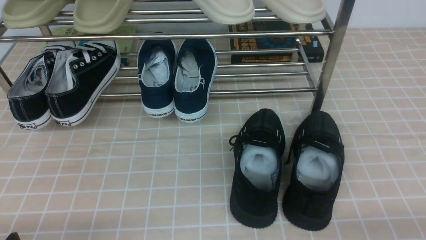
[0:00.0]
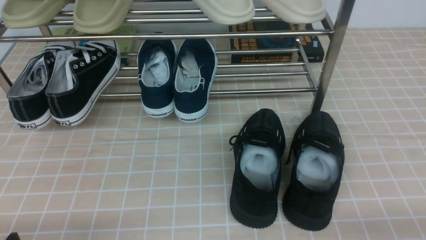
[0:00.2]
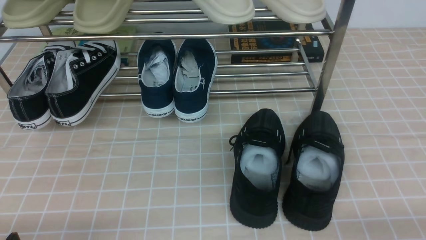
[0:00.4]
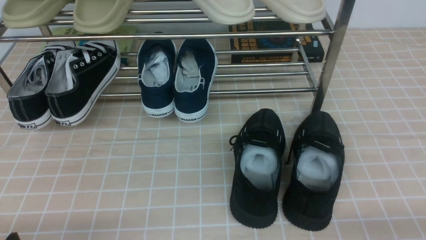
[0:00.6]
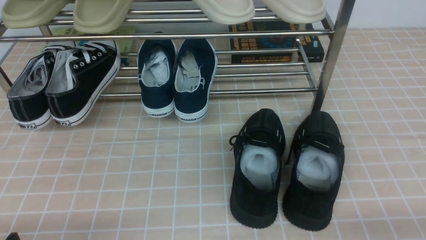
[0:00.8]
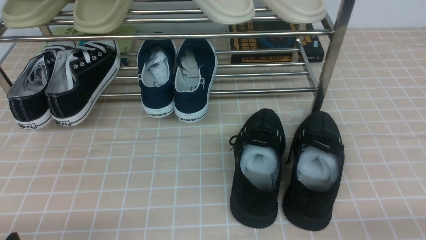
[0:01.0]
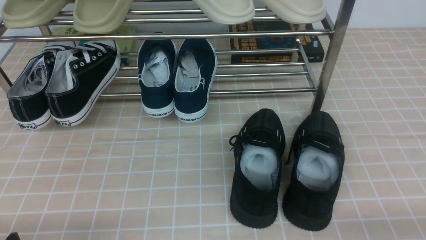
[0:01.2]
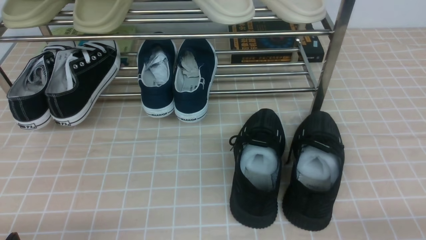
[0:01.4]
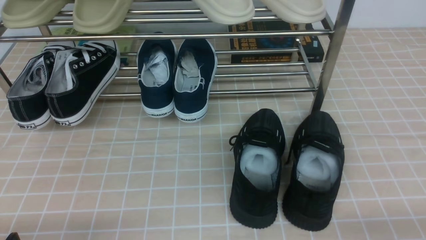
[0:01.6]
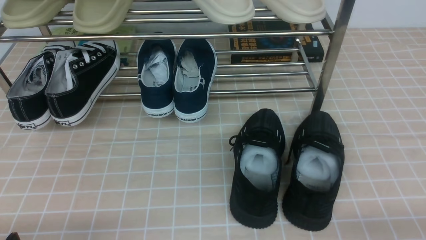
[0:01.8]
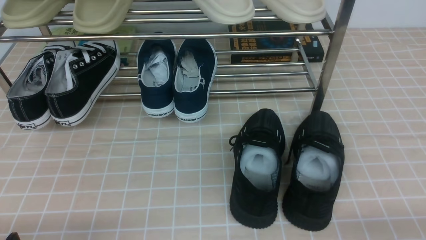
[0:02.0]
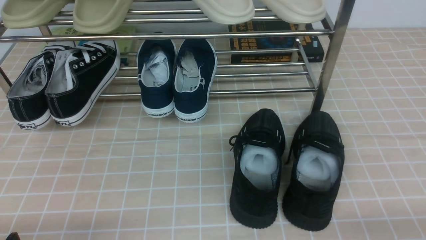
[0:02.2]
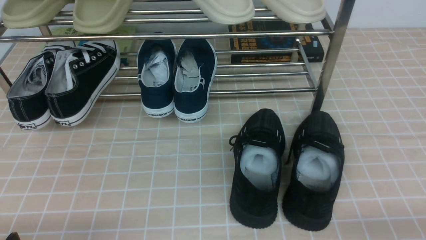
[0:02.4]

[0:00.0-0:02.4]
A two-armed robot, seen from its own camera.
0:00.0 to 0:02.4: Neither gripper changes place.

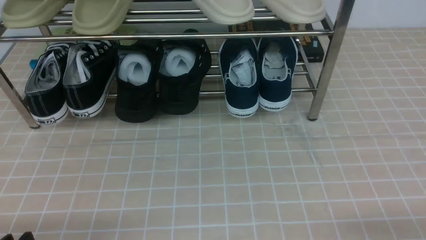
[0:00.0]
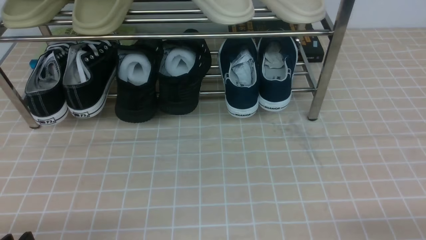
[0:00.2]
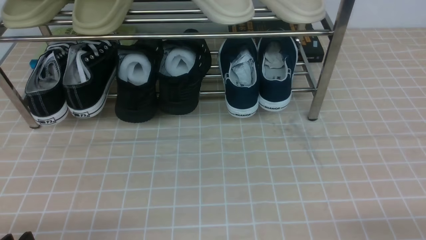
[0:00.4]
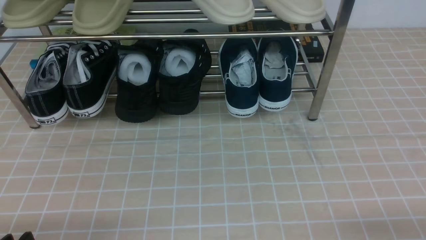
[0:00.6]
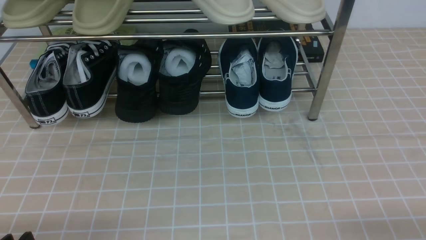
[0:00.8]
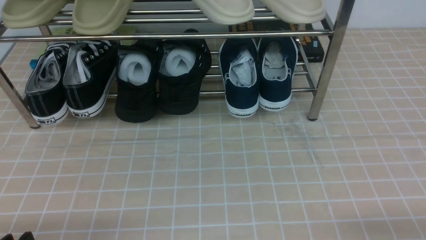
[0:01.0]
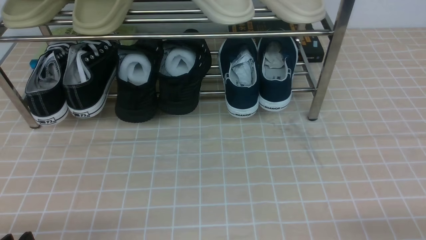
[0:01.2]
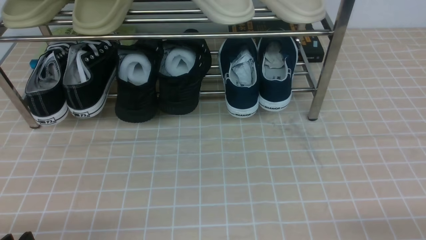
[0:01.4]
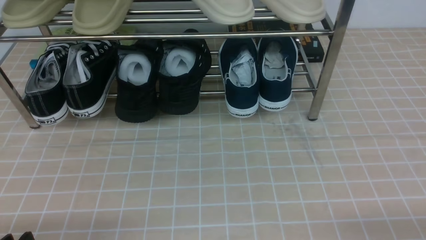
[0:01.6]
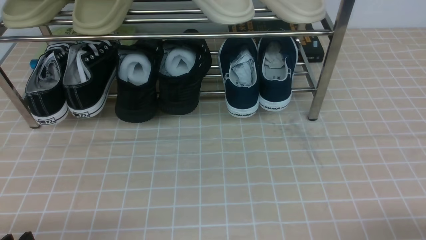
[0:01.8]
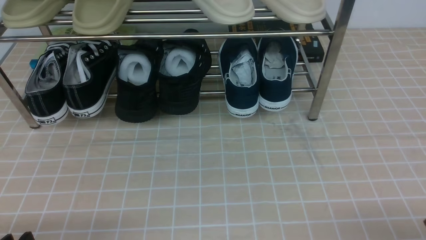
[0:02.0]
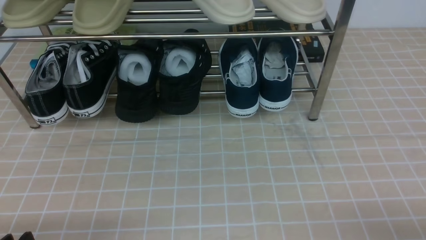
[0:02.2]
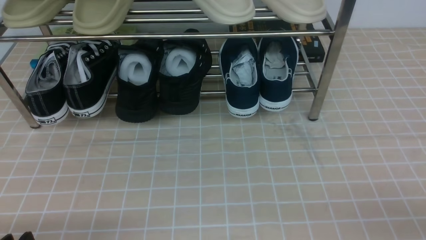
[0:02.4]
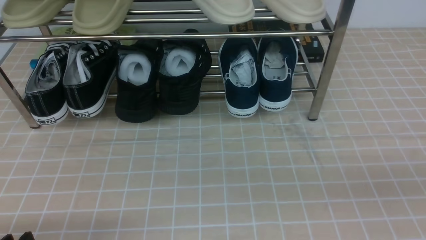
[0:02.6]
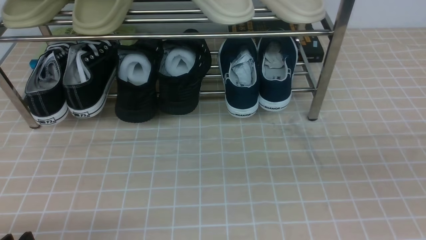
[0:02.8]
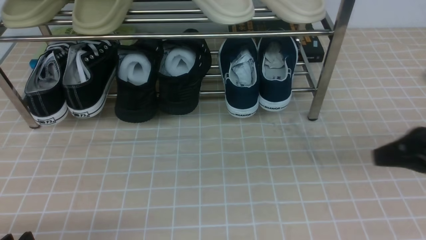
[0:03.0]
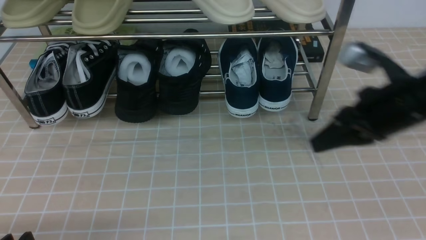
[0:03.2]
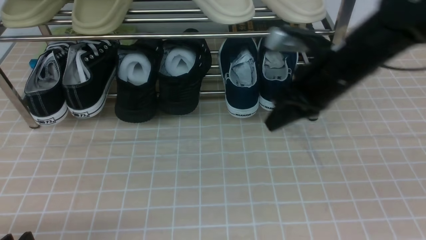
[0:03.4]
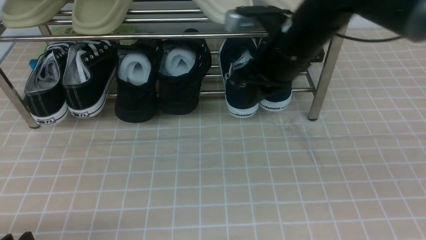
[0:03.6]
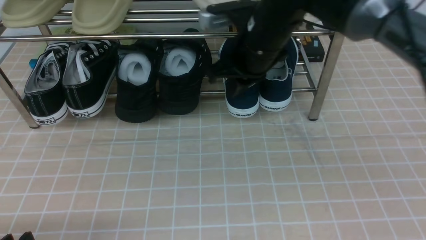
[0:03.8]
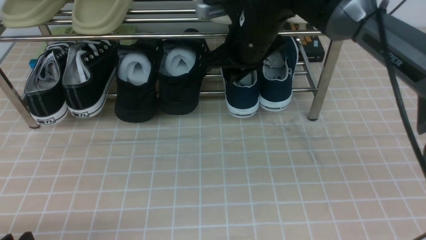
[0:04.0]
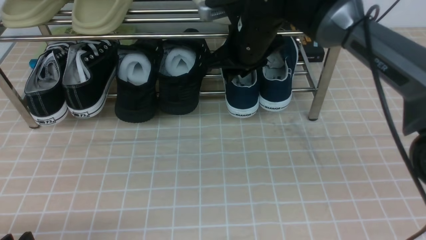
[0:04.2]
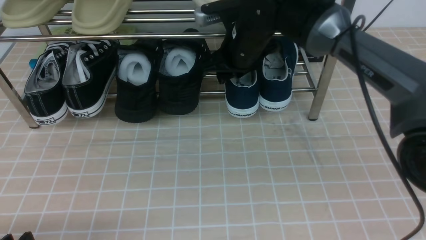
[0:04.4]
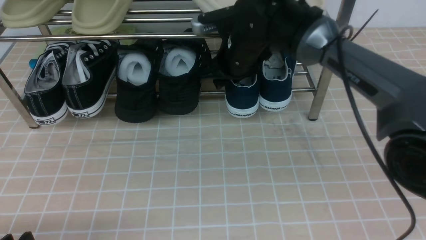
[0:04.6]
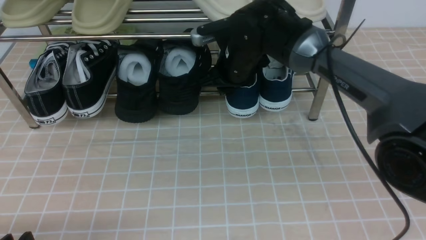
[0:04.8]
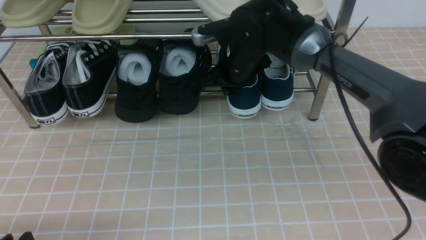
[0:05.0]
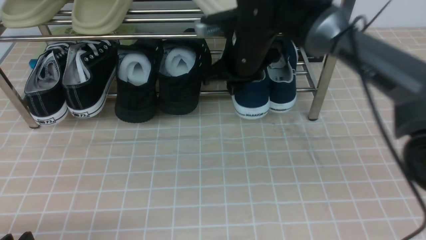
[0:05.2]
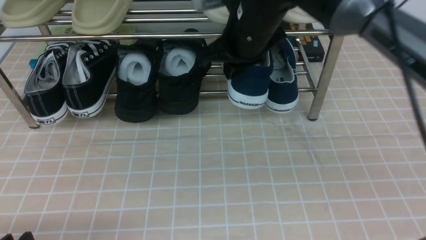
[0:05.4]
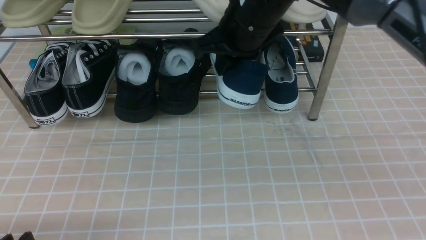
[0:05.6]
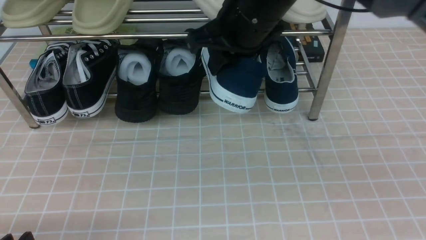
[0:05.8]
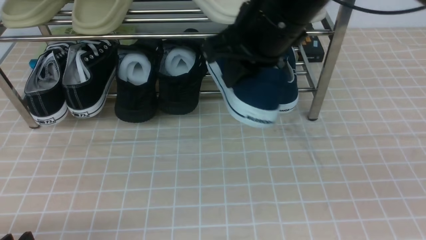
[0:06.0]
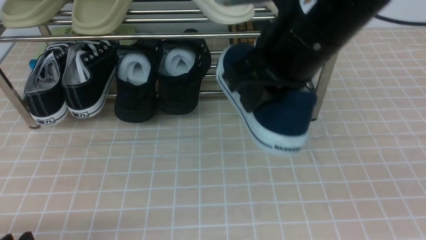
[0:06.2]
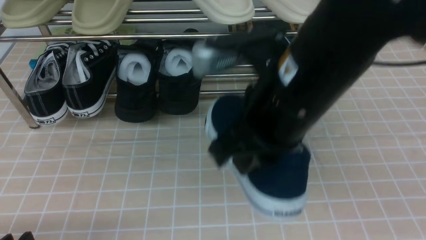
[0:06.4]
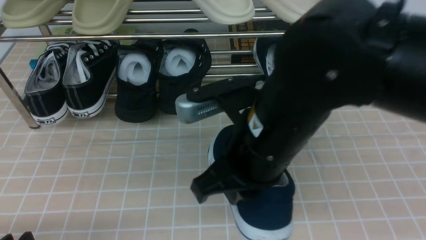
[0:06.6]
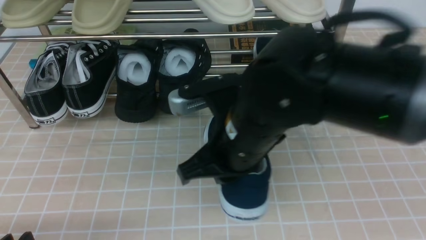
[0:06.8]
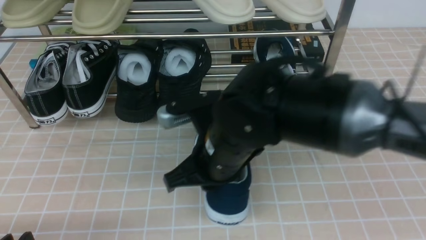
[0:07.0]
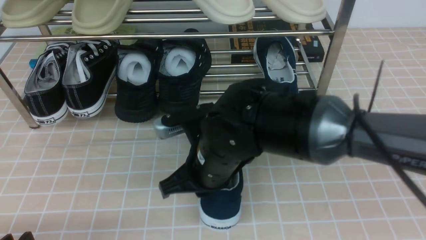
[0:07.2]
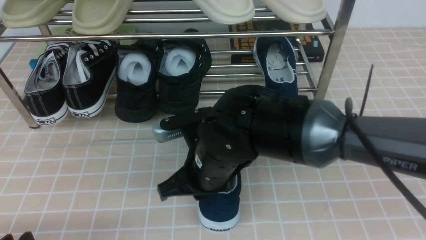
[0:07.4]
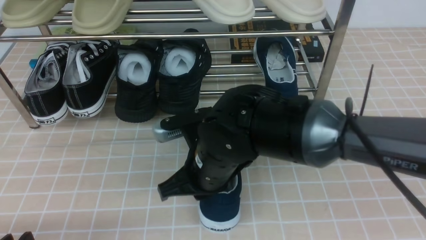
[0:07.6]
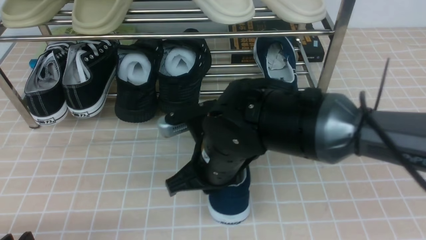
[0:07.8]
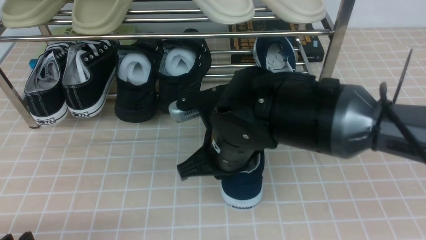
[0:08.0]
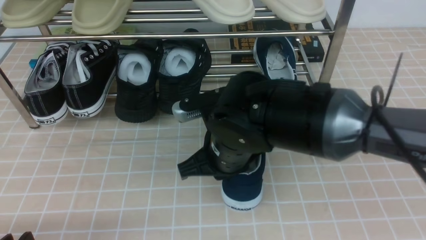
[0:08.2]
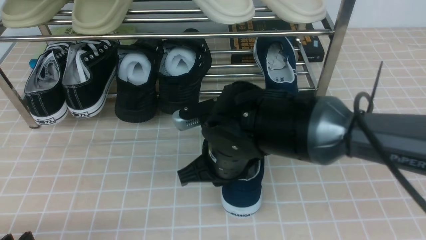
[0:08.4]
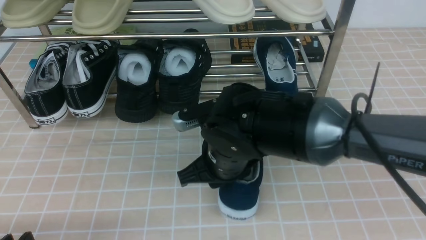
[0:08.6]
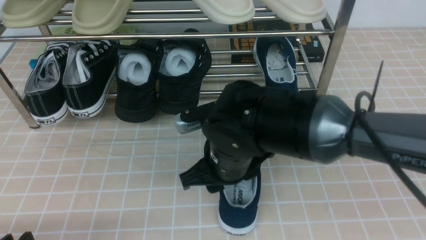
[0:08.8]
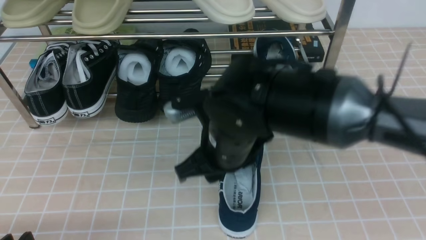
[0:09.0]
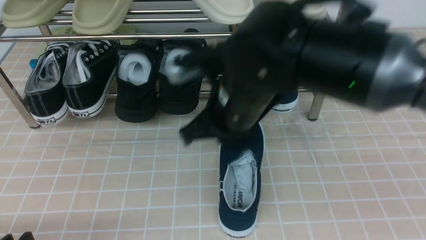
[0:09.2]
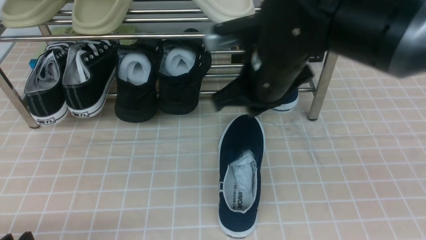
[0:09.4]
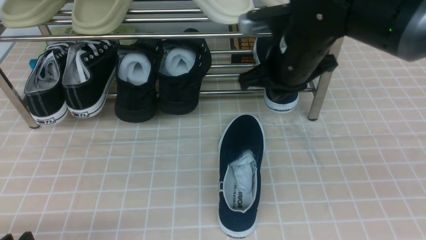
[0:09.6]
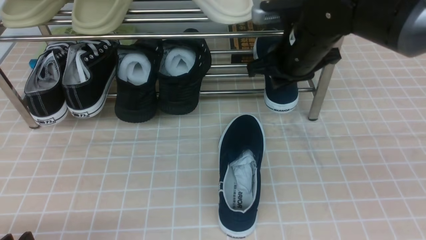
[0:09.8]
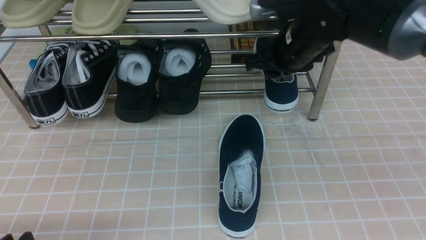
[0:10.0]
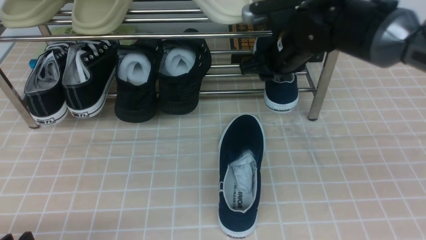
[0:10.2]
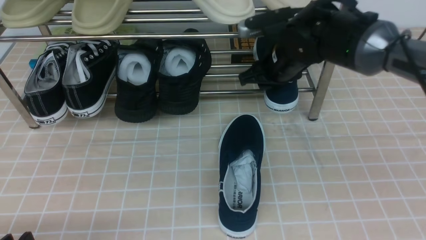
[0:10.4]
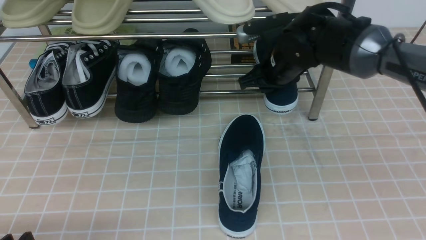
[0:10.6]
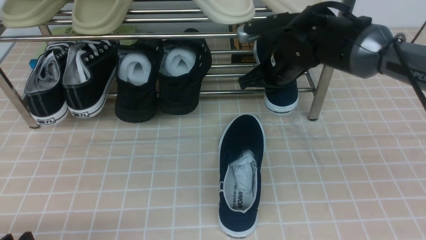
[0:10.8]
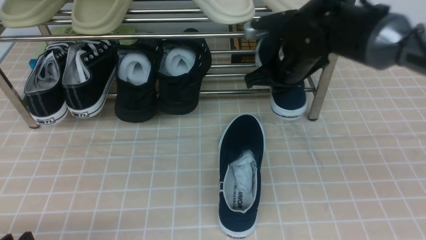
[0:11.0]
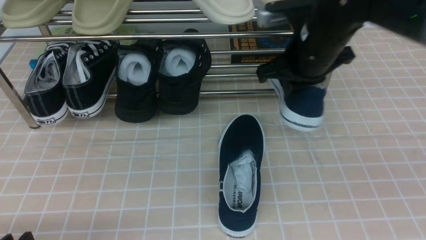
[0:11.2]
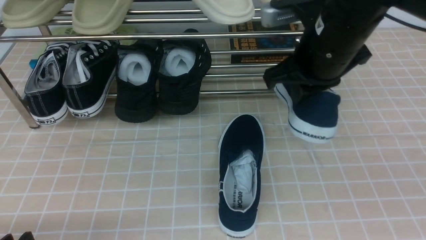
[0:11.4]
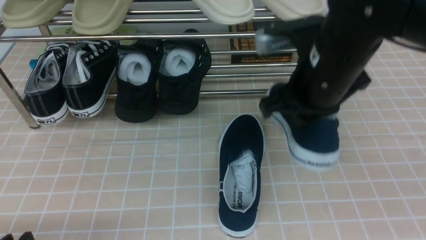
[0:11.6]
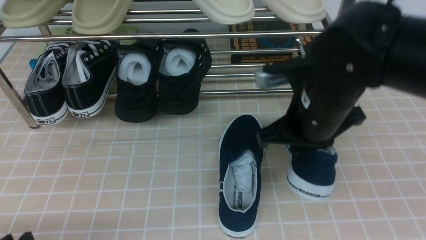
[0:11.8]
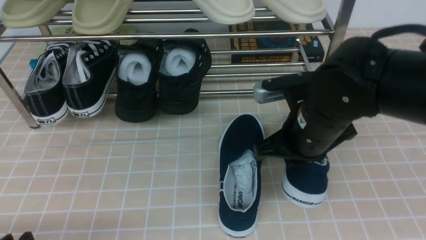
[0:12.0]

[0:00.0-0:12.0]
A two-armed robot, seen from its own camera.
Step, 0:00.0 to 0:04.8: use the right arm to clamp a shoe on the right side of the shoe rack.
Step, 0:05.0 to 0:08.6: use the right arm to take out the clamped shoe from the shoe rack and put it down.
Step, 0:08.8 to 0:10.8: use the right arm to clamp a shoe on the right side of the shoe rack.
0:01.6 to 0:03.0: The right gripper moves upward and forward, about 20 cm, and closes up.
0:03.0 to 0:04.4: The right gripper is displaced forward and to the left by about 35 cm, and opens its fingers.
0:04.4 to 0:06.0: The right gripper heads backward and upward, covering about 15 cm, and closes its fingers.
0:06.0 to 0:07.6: The right gripper shifts some 20 cm downward and to the left.
0:07.6 to 0:09.0: The right gripper opens up.
0:09.0 to 0:10.4: The right gripper heads forward and to the right, covering some 20 cm, and closes, then opens again.
0:10.4 to 0:12.0: The right gripper heads backward, covering about 15 cm, and closes.

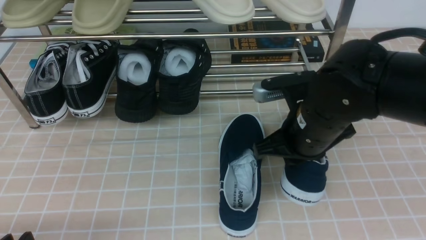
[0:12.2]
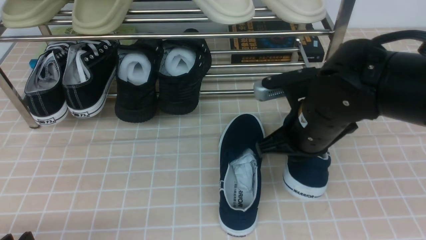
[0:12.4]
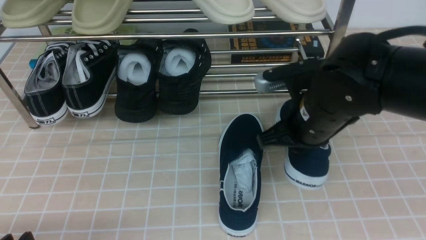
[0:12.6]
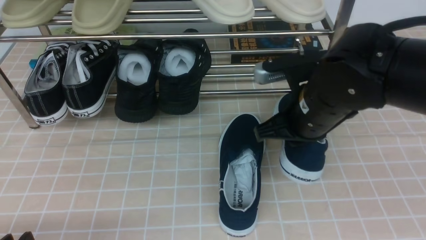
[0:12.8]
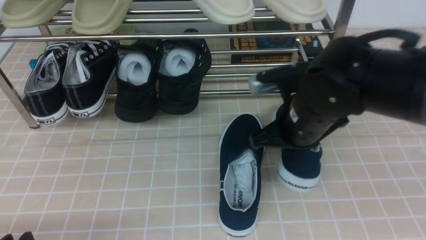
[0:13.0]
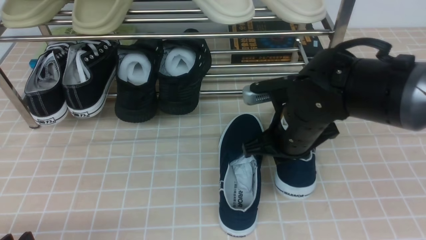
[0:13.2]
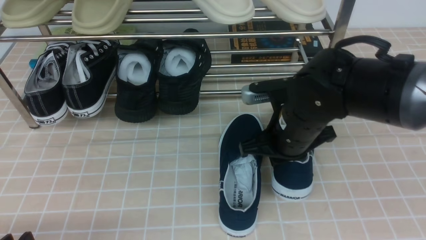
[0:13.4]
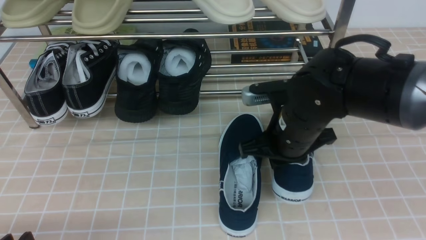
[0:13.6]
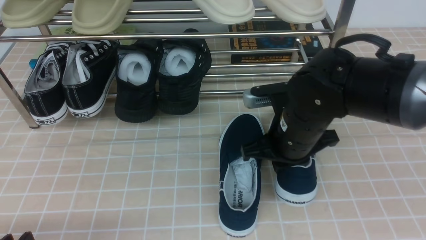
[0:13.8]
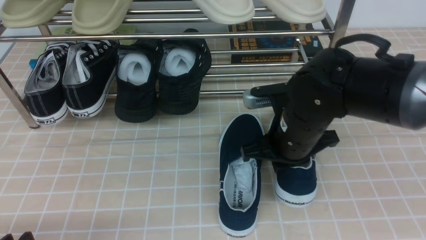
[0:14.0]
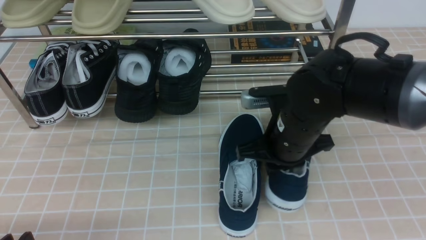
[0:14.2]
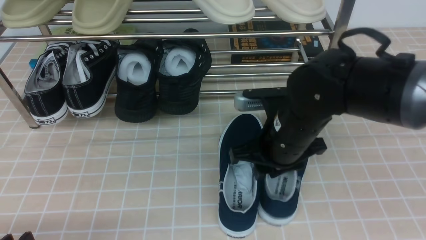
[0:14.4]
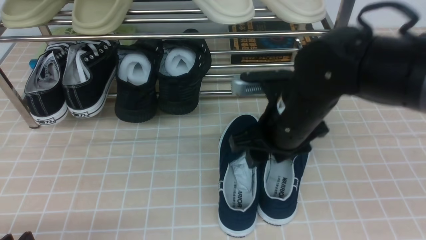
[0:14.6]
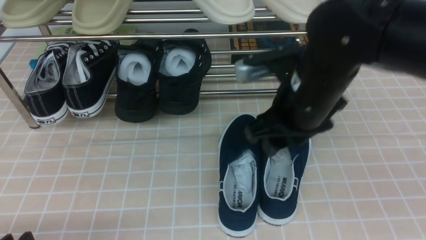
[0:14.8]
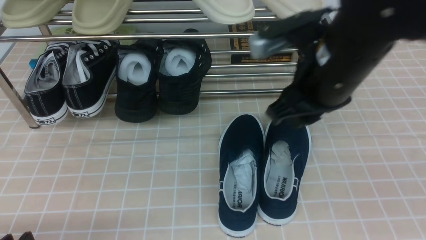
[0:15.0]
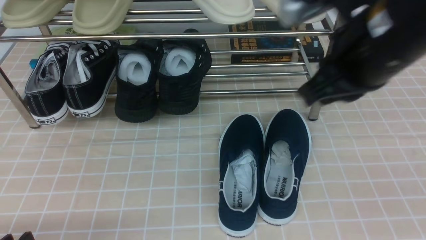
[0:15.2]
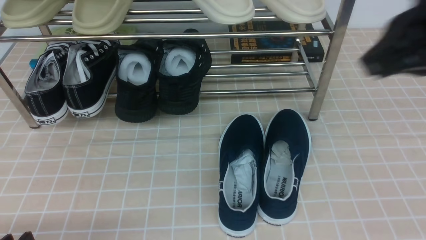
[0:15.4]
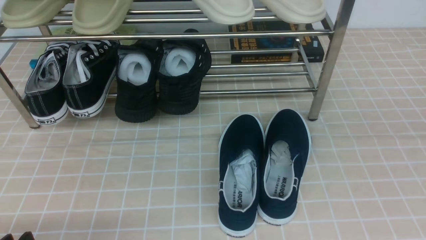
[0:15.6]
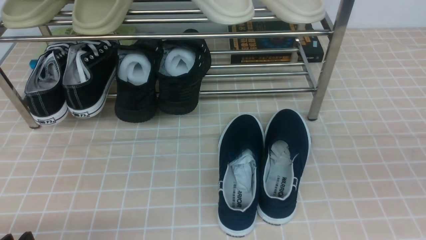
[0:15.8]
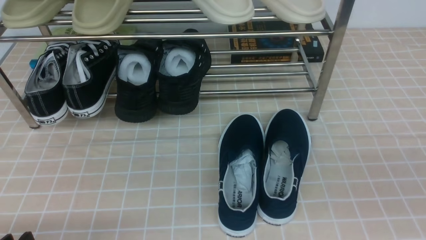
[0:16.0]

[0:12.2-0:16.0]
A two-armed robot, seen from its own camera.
Step, 0:12.2 to 0:14.4: use the right arm to take out the clamped shoe from the shoe rack and put it down.
0:12.2 to 0:13.4: The grippers make only small movements.
0:13.4 to 0:14.8: The right gripper is displaced upward by some 5 cm, and opens.
0:14.8 to 0:16.0: The right gripper moves backward, to the right and upward, roughly 30 cm, and closes up.
